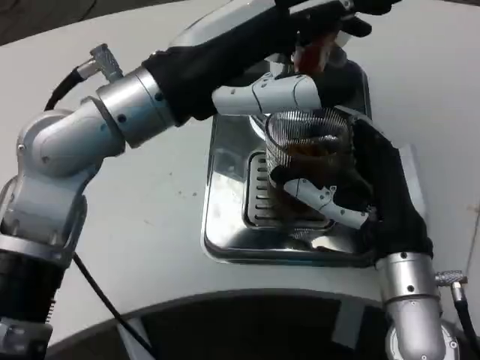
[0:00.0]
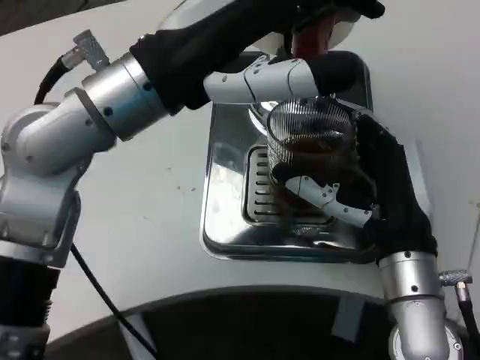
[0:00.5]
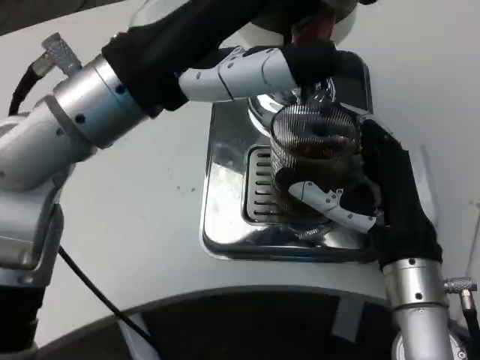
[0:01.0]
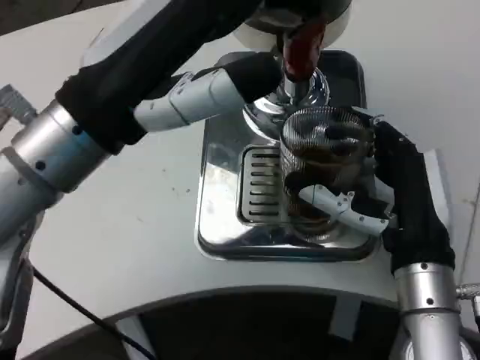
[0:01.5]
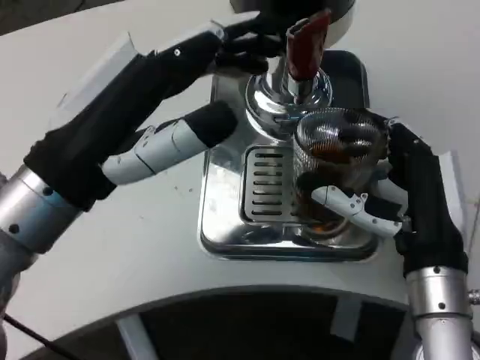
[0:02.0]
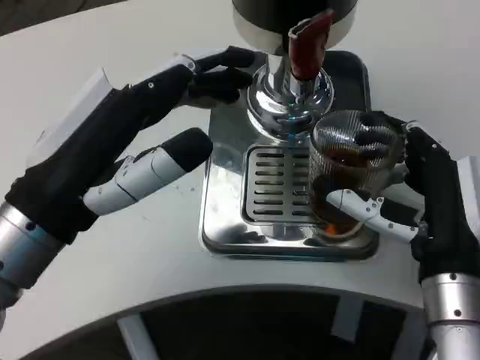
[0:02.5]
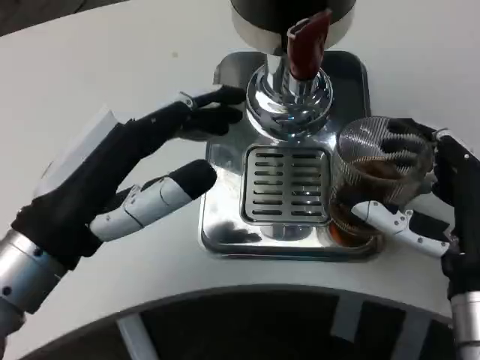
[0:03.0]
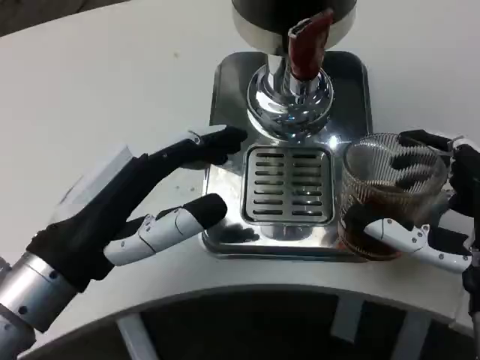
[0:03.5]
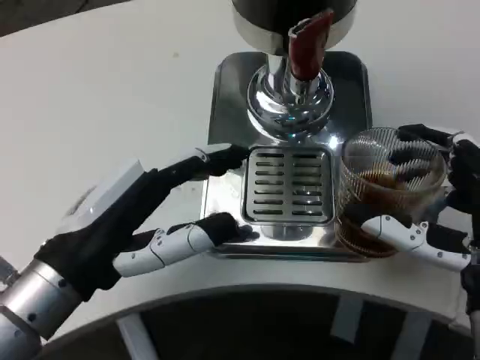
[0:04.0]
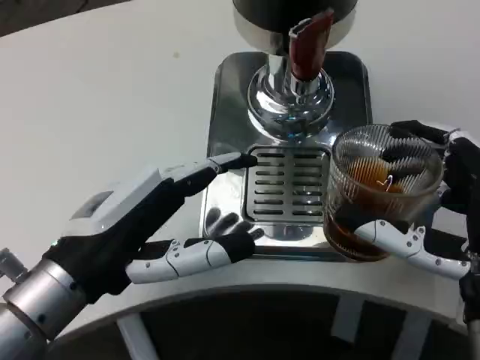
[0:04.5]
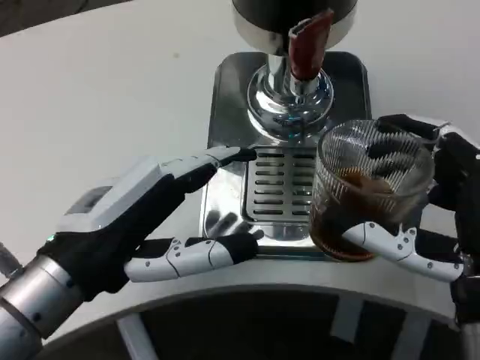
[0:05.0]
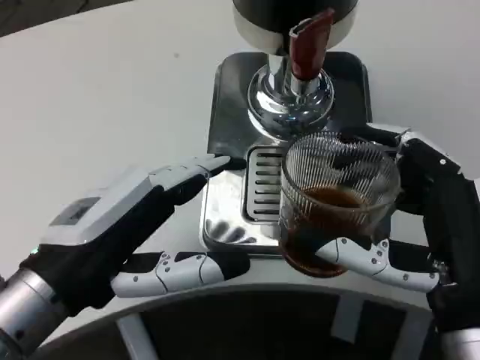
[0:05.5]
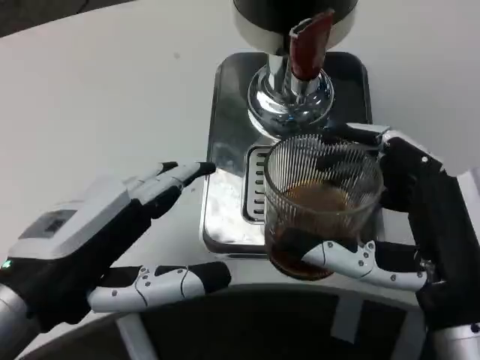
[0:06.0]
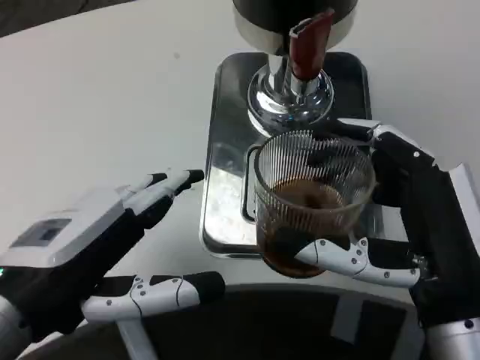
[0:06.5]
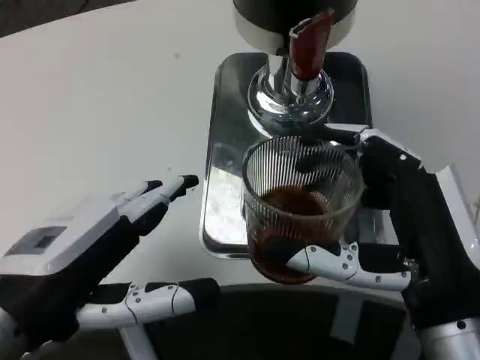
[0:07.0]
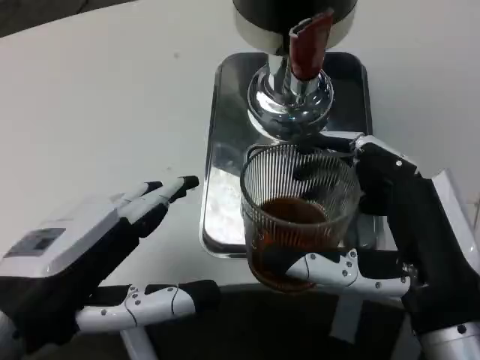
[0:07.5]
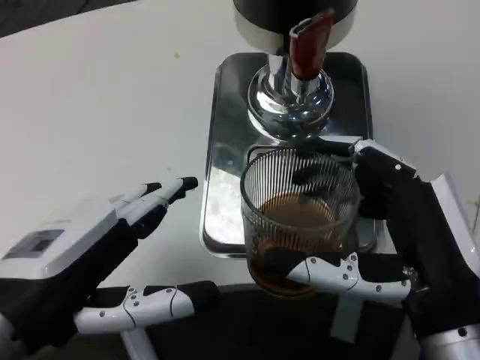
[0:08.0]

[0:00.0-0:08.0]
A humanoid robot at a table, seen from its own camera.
Task of the whole recording: Grasp the cup under the faucet to collect the drink, then remove the cup.
0:00.0 to 0:02.0: The left hand is displaced backward, downward and to the left by about 10 cm.
0:02.0 to 0:04.0: The right hand shifts by approximately 5 cm, while the left hand heads downward, covering about 5 cm.
0:04.0 to 0:06.0: The left hand ends up some 5 cm from where it was.

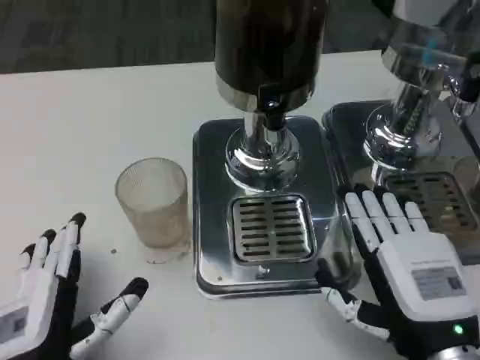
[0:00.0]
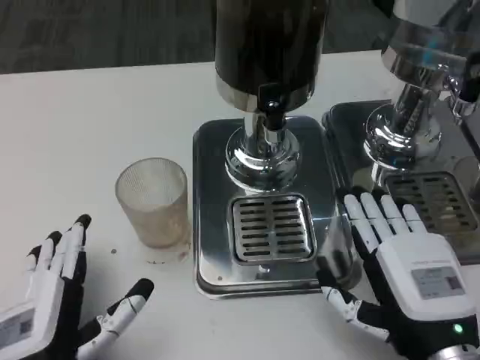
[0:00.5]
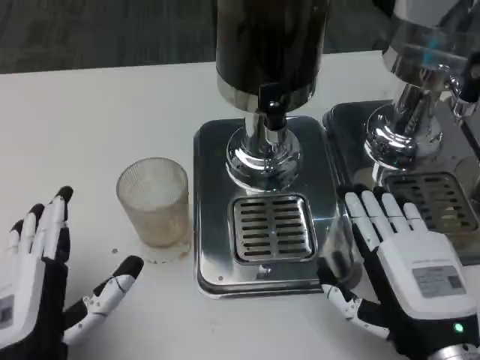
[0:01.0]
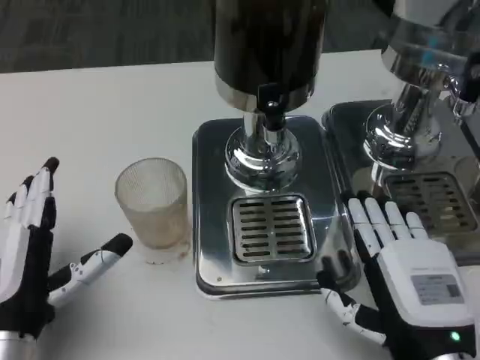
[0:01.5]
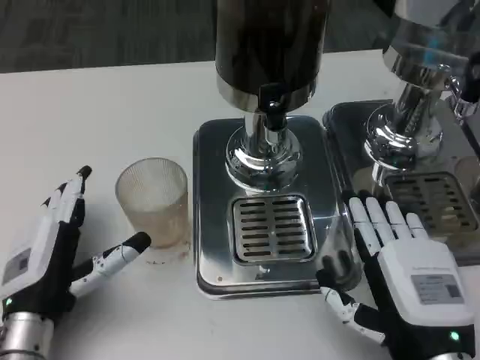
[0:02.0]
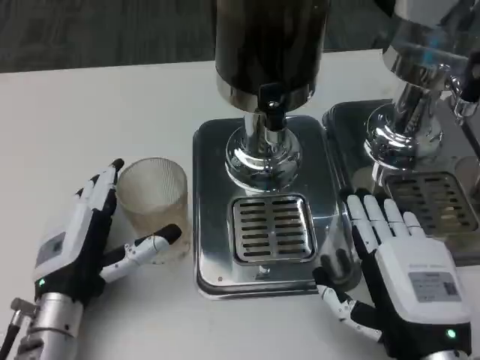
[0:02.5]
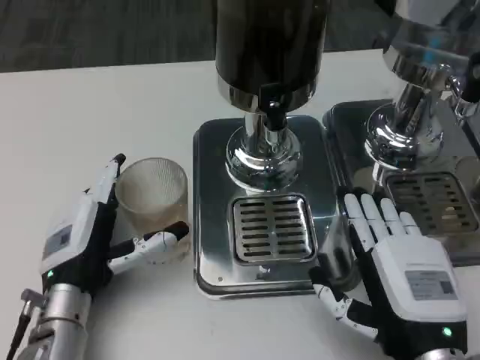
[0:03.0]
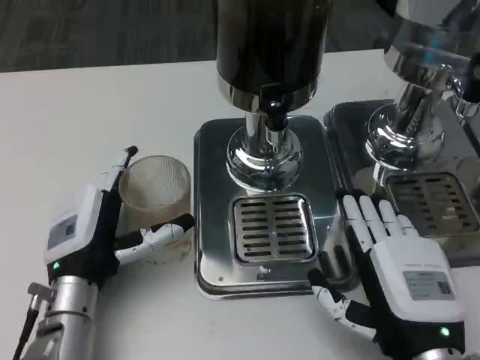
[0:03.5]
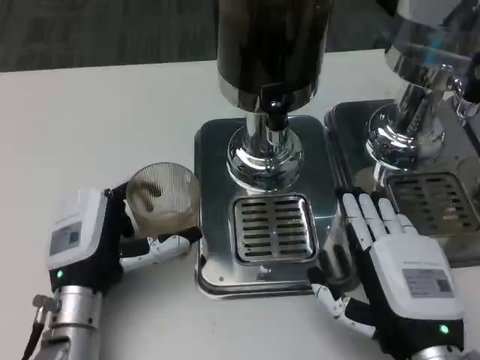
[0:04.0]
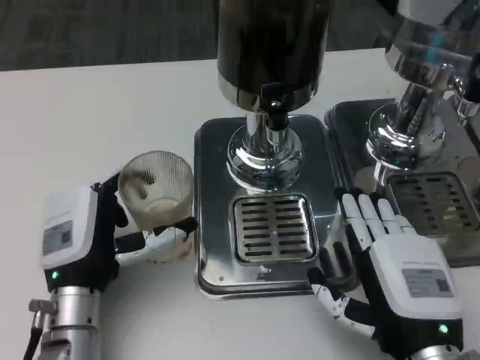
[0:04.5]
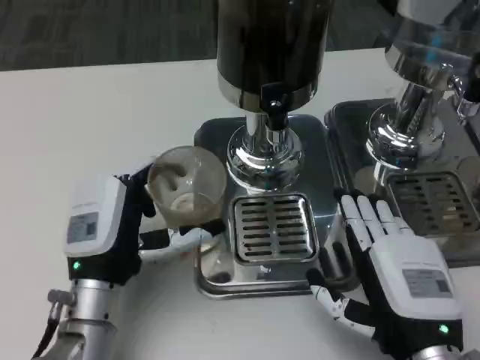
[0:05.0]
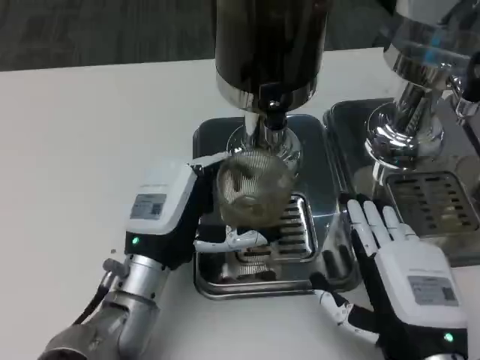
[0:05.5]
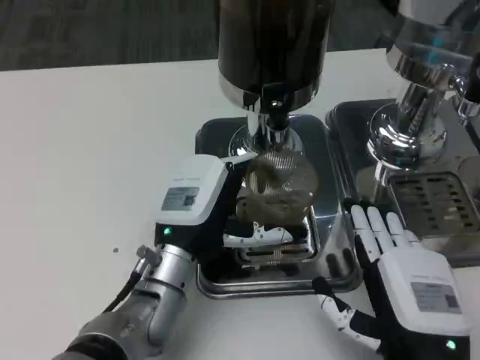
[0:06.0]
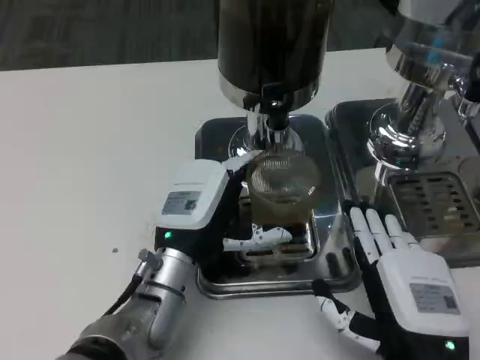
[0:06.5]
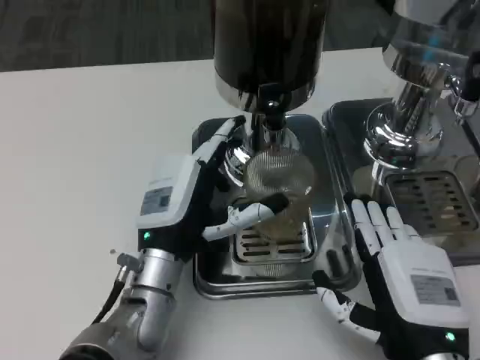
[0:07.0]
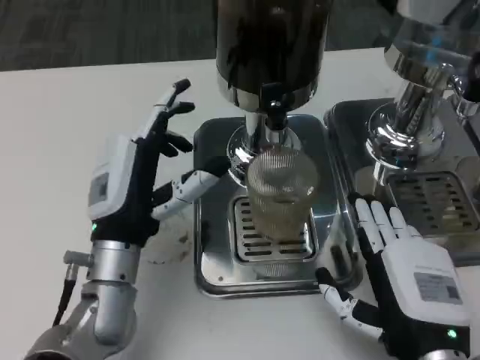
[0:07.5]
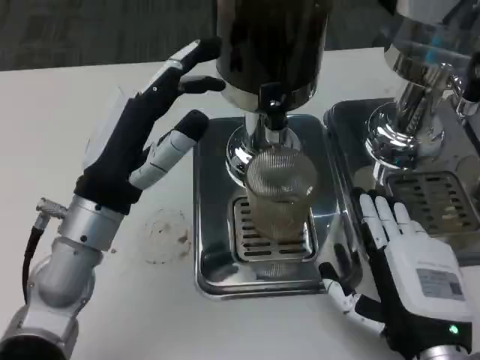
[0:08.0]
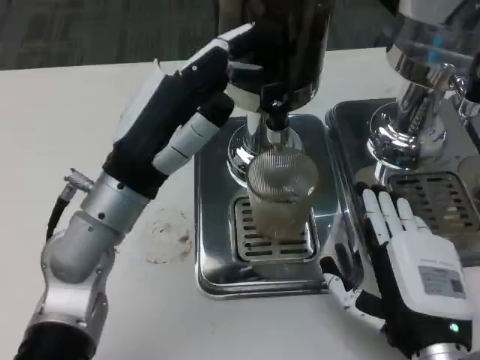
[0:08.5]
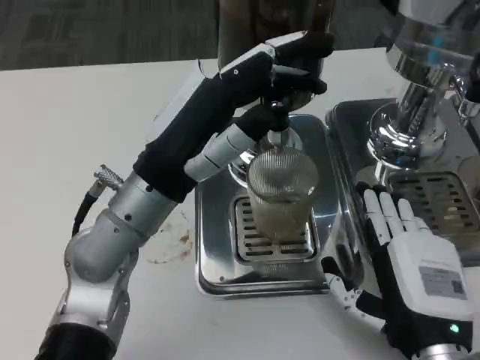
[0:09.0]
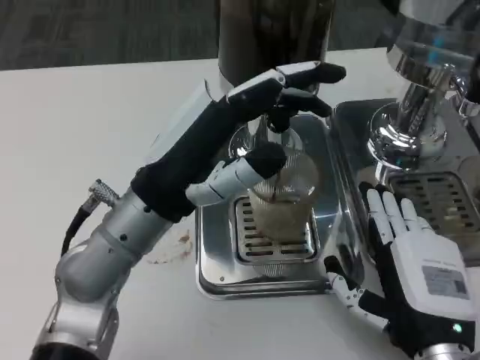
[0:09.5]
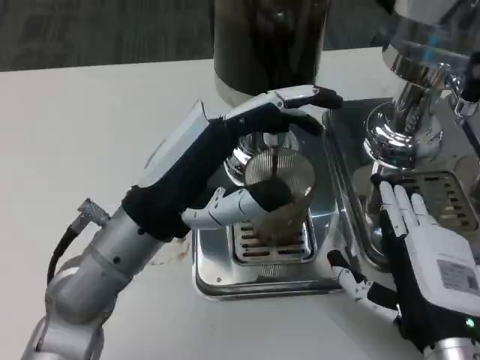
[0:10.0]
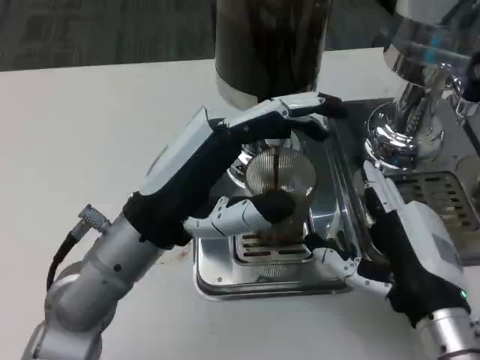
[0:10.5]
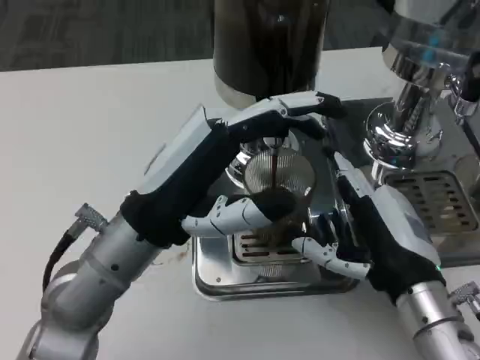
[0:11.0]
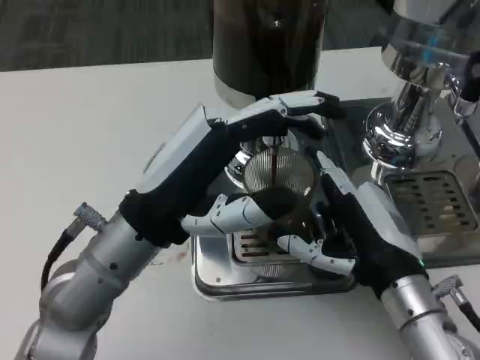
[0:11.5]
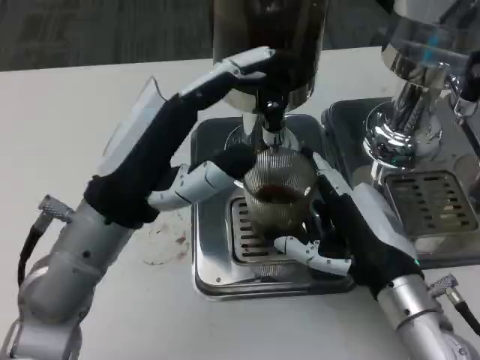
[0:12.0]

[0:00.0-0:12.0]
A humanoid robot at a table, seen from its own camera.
Task of the whole recording: Grasp the cup under the faucet to collect the drink, then remove the cup.
0:00.0 to 0:02.0: The left hand shifts about 10 cm forward.
0:02.0 to 0:04.0: The left hand shifts by some 5 cm.
0:04.0 to 0:06.0: The left hand goes roughly 10 cm to the right.
0:06.0 to 0:08.0: The left hand shifts some 10 cm upward and to the left.
0:10.0 to 0:12.0: The right hand is displaced forward by roughly 5 cm.

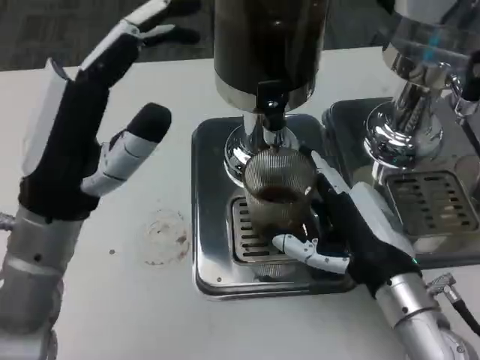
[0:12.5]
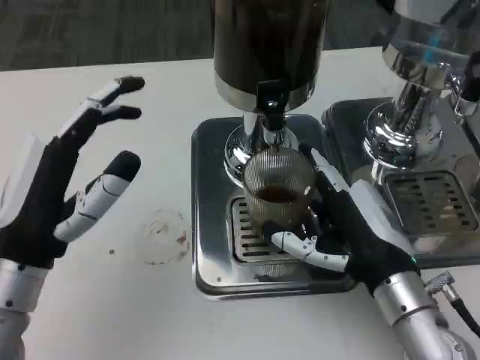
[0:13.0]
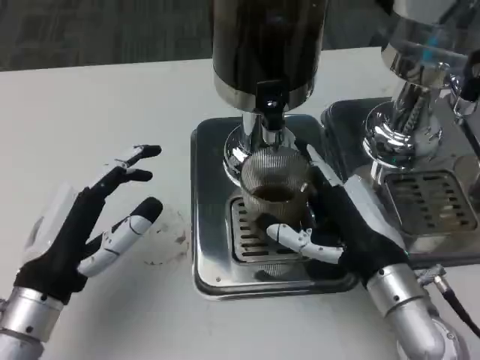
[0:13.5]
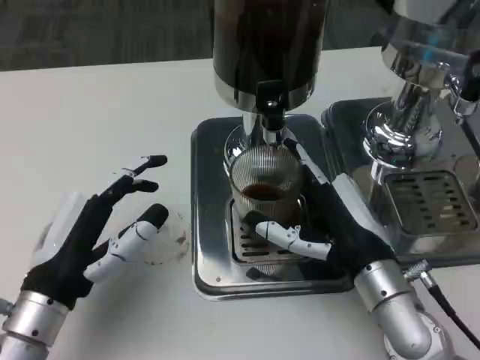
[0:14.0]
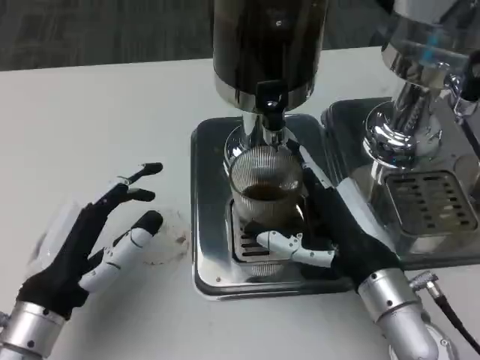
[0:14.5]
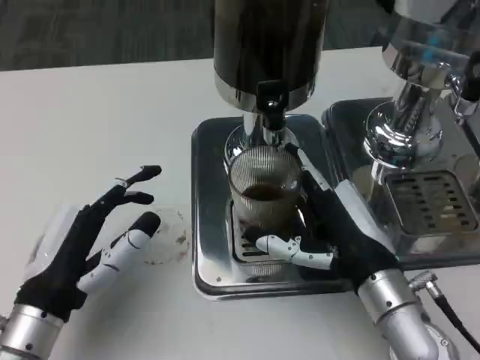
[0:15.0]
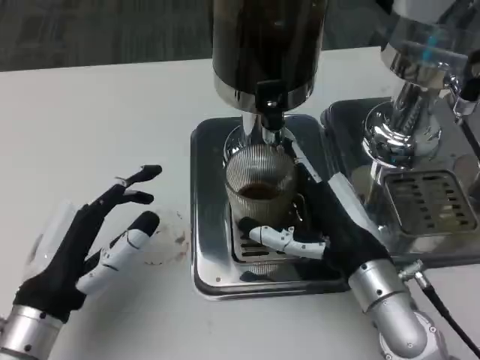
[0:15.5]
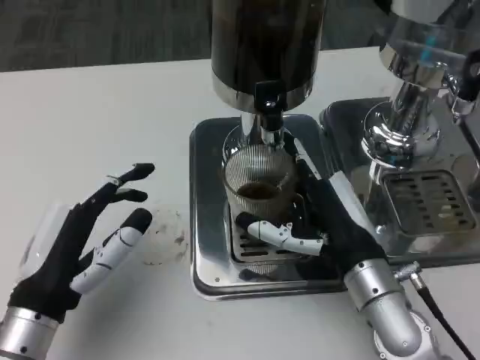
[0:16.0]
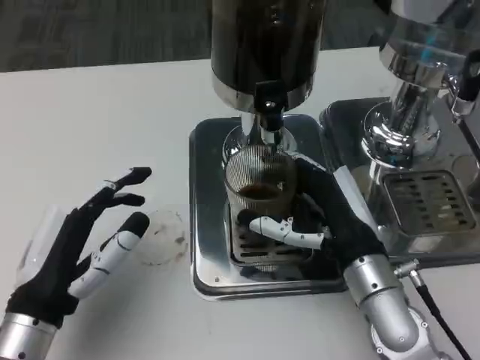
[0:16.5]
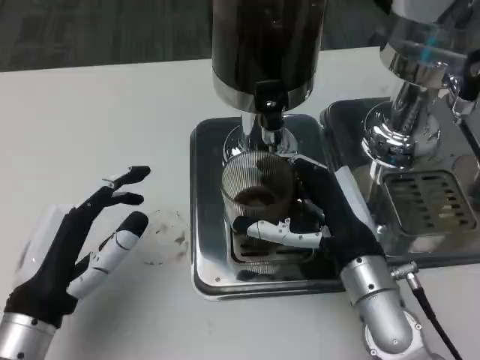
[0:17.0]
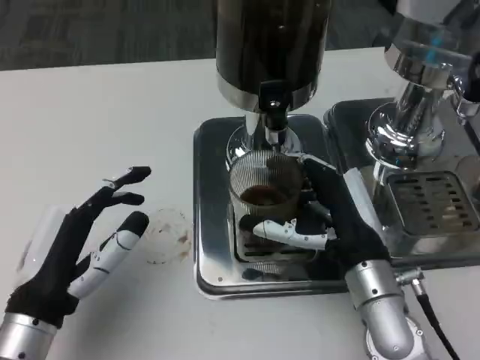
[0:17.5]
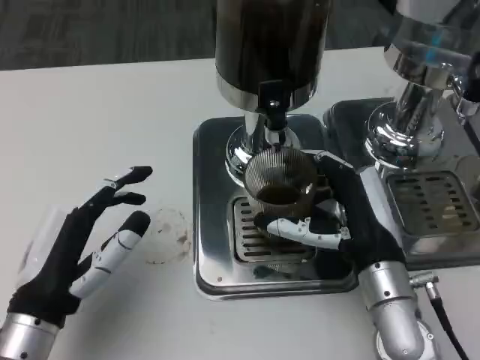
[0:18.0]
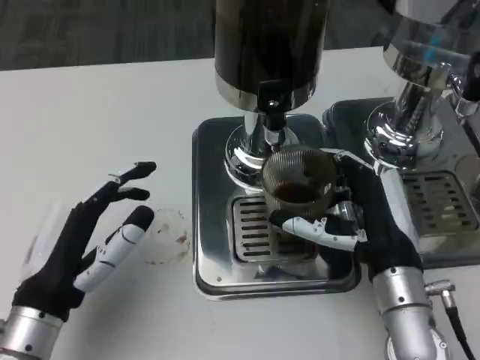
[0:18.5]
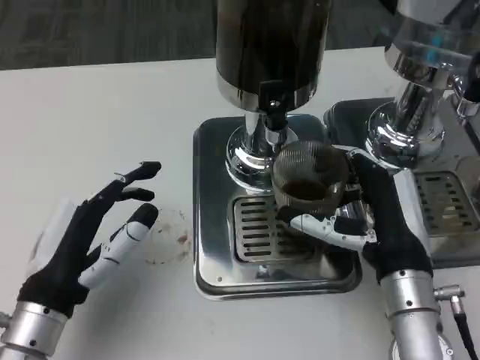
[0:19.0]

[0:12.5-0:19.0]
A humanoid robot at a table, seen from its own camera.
Task of the whole recording: Grasp the cup under the faucet to collect the drink, then remove the cup.
0:12.5 to 0:14.5: The left hand is displaced downward by roughly 10 cm.
0:14.5 to 0:17.0: The hands stay close to where they were, moving slightly.
